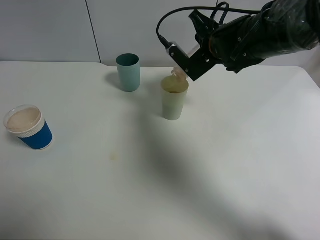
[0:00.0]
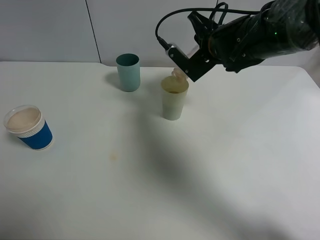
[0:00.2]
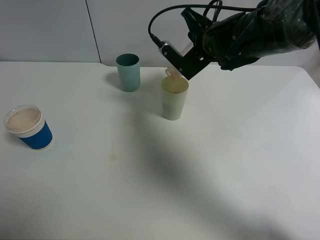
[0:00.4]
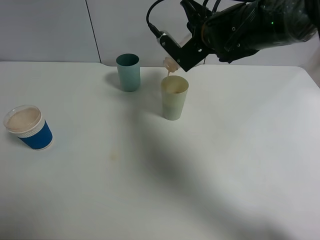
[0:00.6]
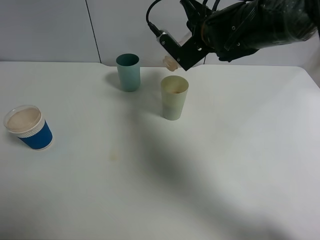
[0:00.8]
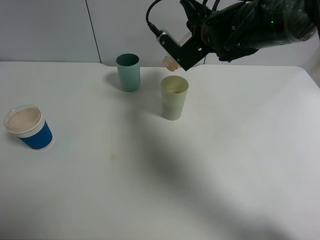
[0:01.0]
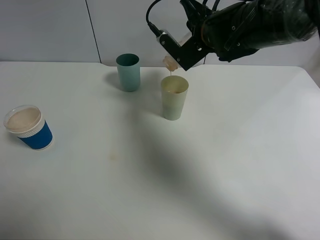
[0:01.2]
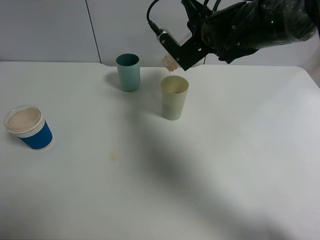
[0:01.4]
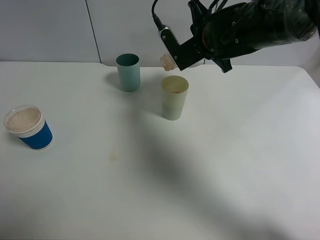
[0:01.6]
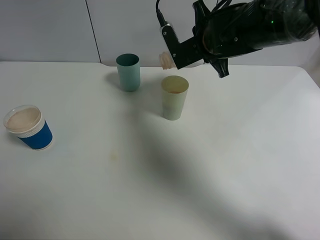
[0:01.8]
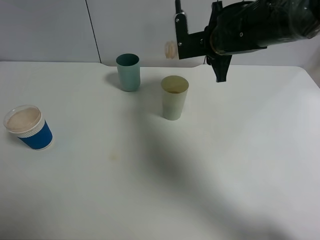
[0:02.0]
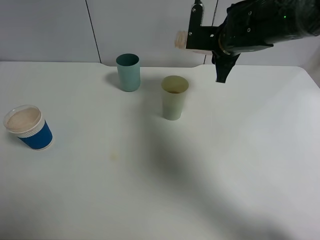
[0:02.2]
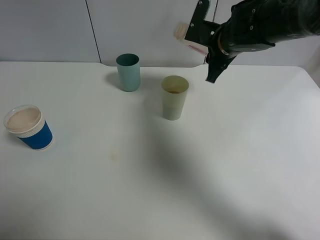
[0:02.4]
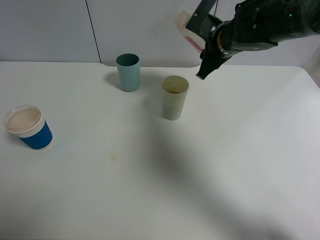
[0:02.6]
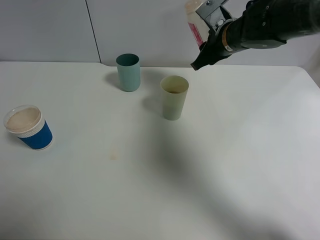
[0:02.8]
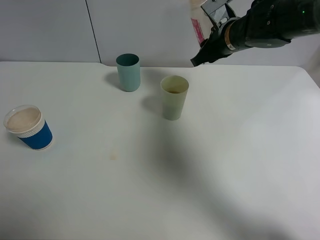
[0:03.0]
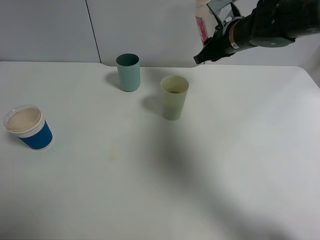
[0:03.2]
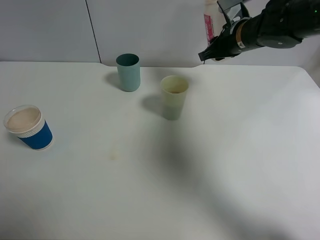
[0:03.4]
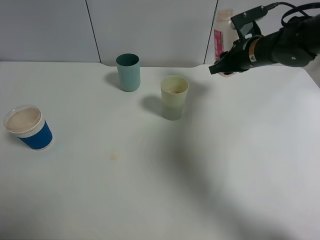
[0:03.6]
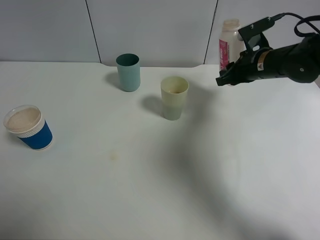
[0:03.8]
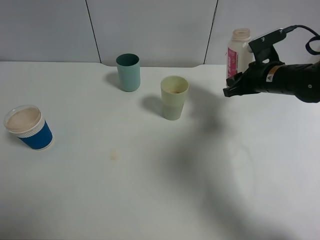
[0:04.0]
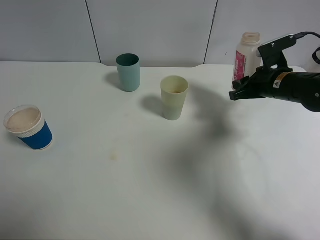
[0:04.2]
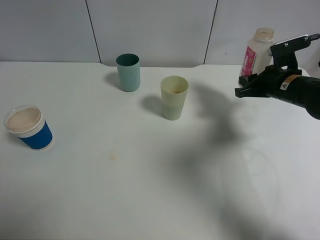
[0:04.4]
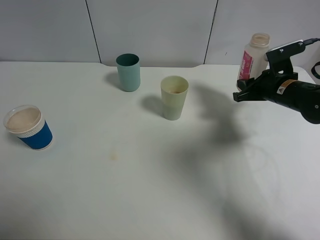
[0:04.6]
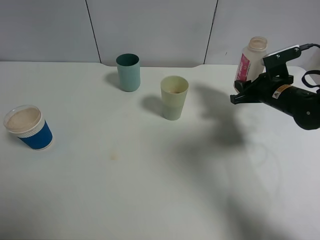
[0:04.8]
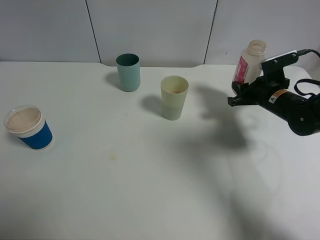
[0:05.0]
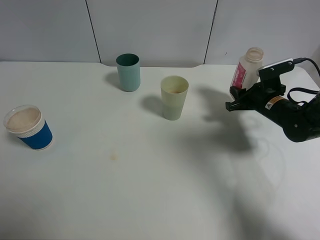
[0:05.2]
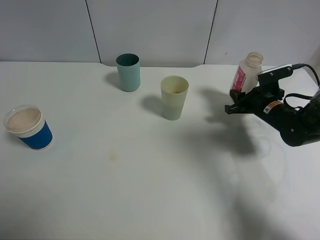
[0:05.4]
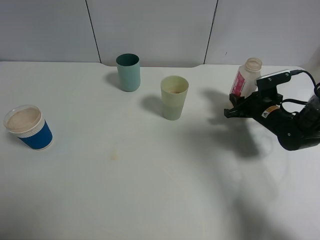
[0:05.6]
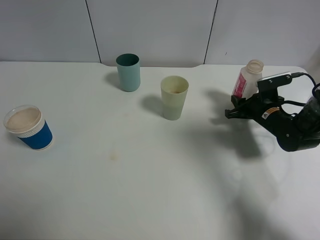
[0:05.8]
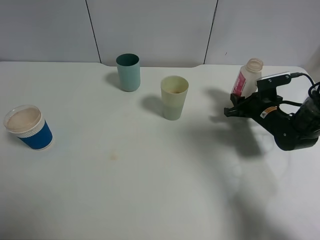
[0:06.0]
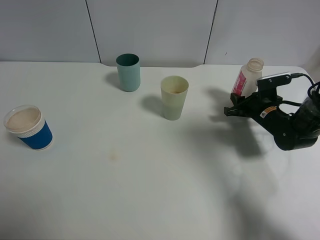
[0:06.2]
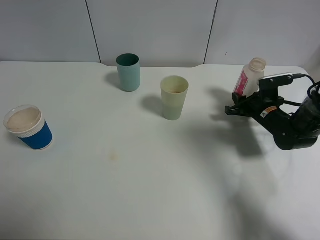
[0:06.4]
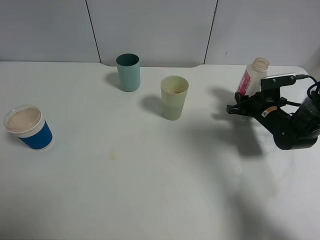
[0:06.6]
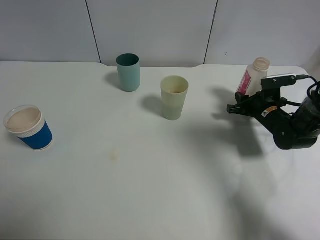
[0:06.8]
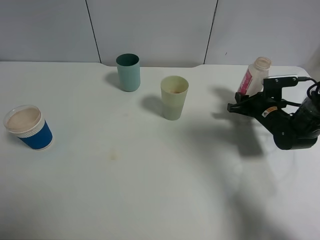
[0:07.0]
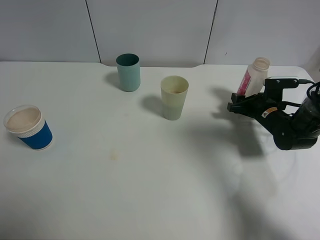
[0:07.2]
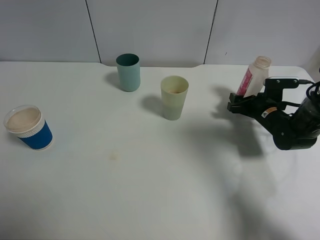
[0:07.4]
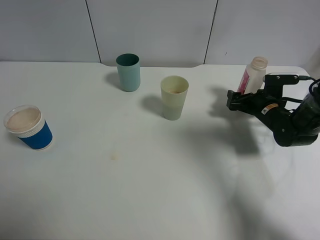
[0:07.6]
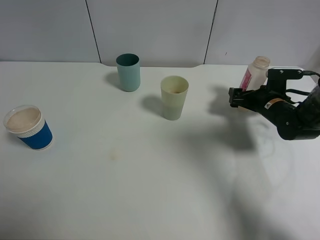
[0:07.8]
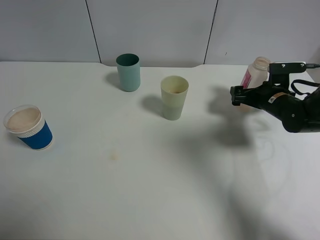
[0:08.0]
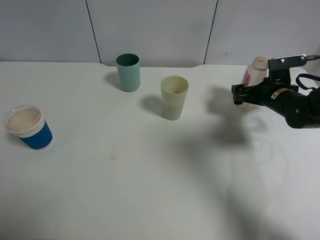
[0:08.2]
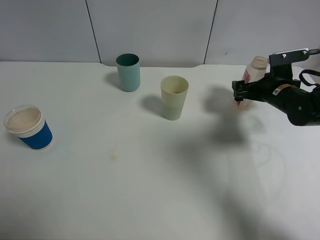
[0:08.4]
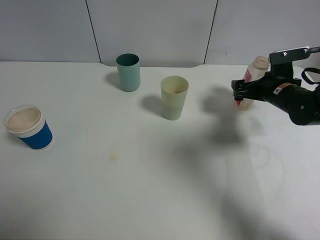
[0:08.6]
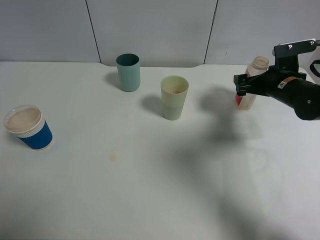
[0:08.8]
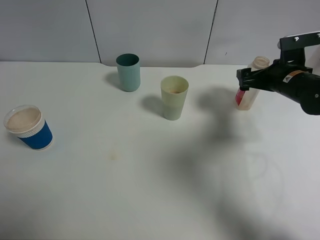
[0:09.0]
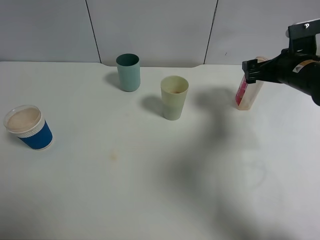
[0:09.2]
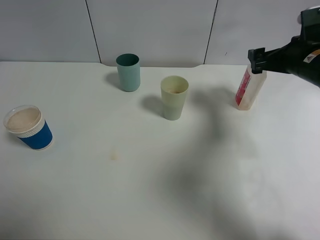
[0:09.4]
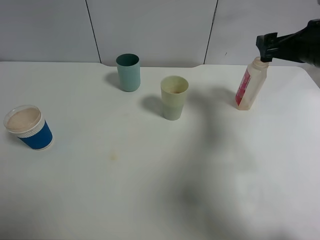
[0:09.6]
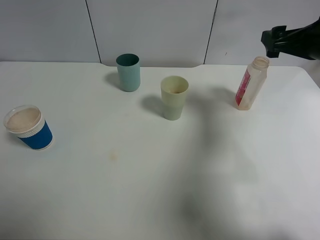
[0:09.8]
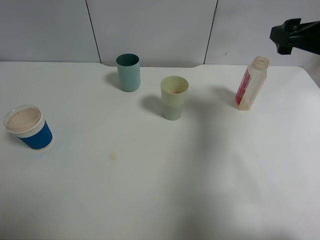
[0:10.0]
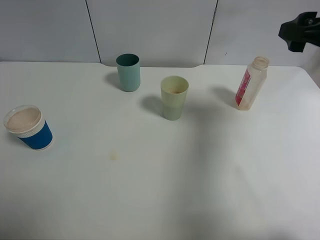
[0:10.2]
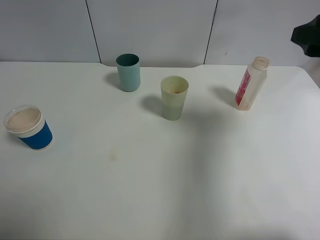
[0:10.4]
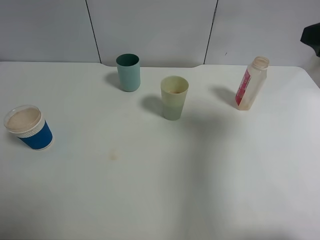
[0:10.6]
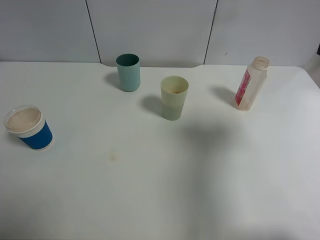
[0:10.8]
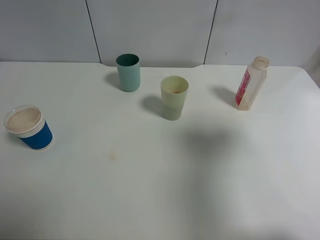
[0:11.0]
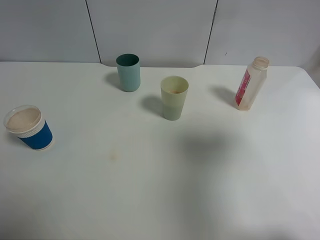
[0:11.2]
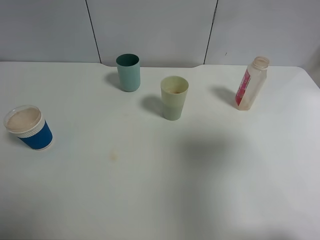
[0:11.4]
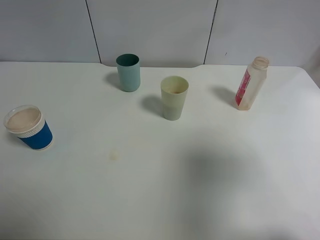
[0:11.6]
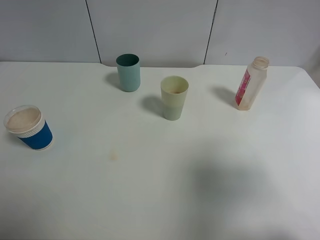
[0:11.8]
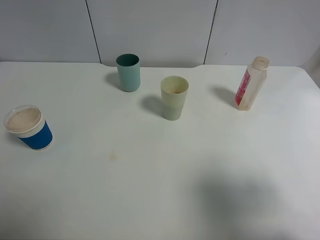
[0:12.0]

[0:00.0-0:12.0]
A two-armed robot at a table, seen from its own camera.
Task of the whole recording: use a clamp to hold the bottle of the drink, pour the beverage into a random cup, then clamp the cup containing the drink and pour the drink into another random cup.
Step, 0:01.6 to 0:07.8: Place the drink bottle on the table with right gripper.
0:00.0 to 0:01.6: The grippers make only small movements.
0:01.6 to 0:03.0: The right gripper shifts by roughly 5 cm.
0:03.0 to 0:04.4: The right gripper heads to the right, downward and backward, covering some 15 cm.
0:04.4 to 0:06.0: The right gripper shifts roughly 10 cm downward.
0:06.0 to 0:07.6: The right gripper opens its fingers.
0:07.6 to 0:09.0: The right gripper travels upward by roughly 10 cm.
0:09.0 to 0:10.4: The right gripper heads upward and backward, covering some 20 cm.
0:10.4 to 0:12.0: The right gripper shifts approximately 20 cm backward.

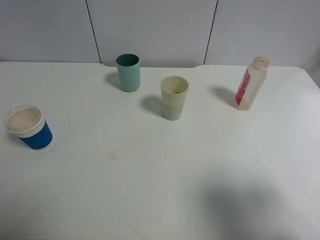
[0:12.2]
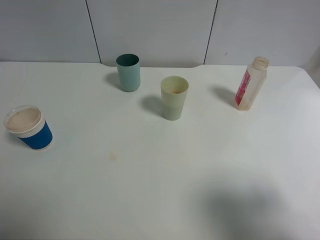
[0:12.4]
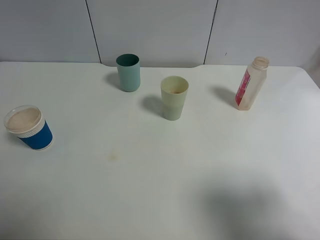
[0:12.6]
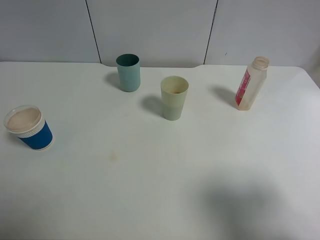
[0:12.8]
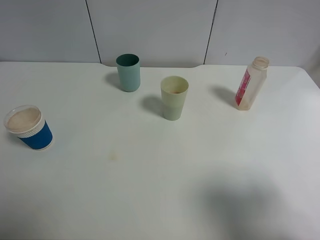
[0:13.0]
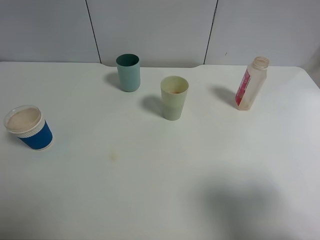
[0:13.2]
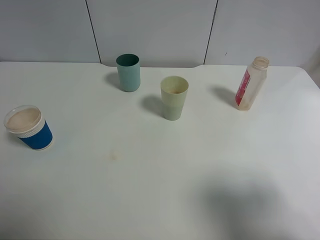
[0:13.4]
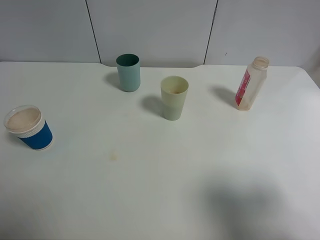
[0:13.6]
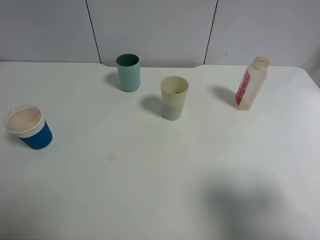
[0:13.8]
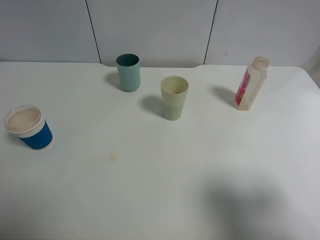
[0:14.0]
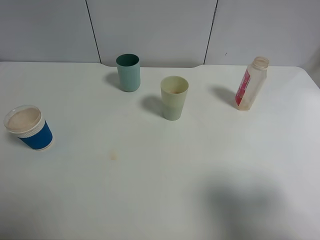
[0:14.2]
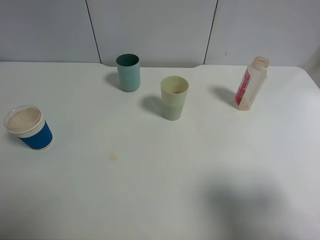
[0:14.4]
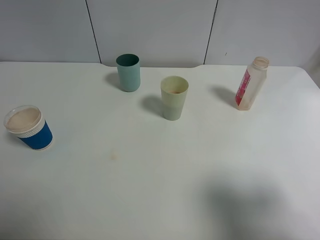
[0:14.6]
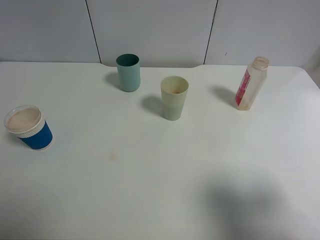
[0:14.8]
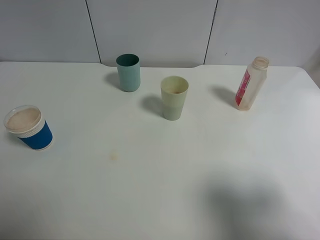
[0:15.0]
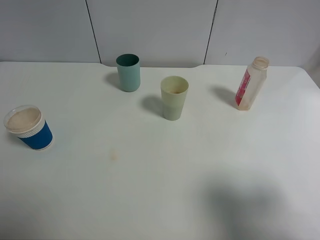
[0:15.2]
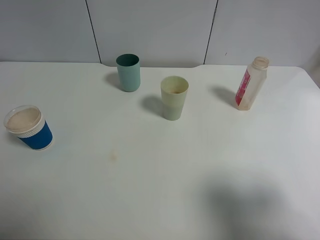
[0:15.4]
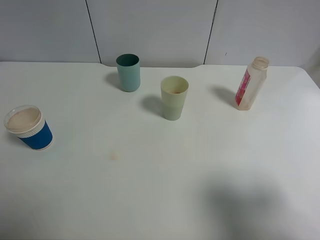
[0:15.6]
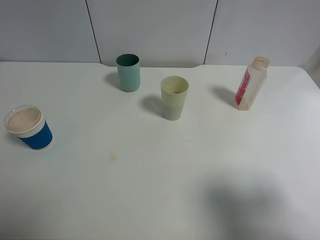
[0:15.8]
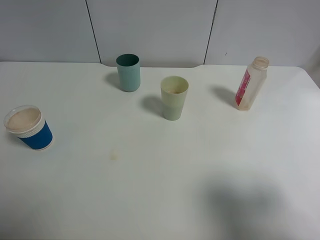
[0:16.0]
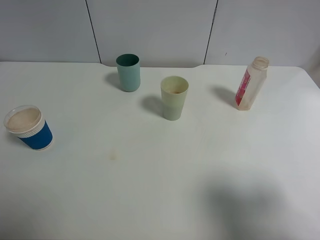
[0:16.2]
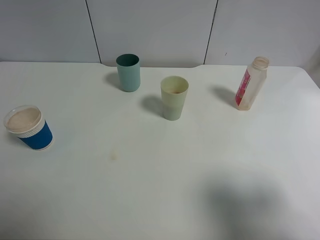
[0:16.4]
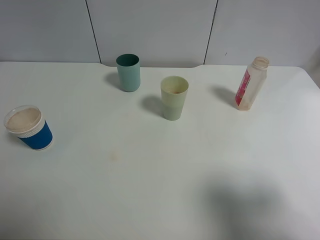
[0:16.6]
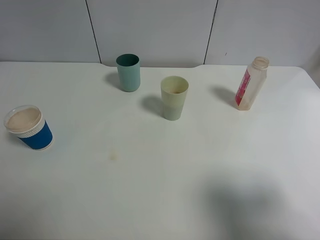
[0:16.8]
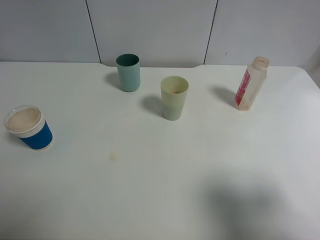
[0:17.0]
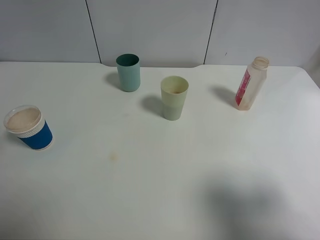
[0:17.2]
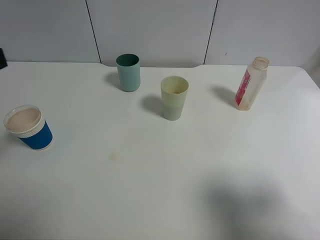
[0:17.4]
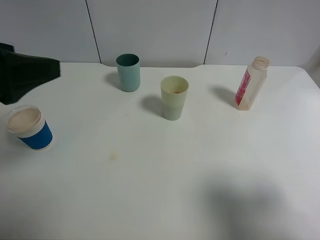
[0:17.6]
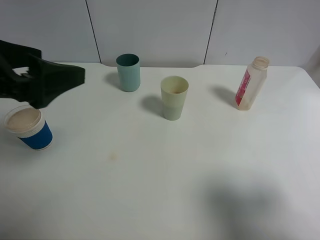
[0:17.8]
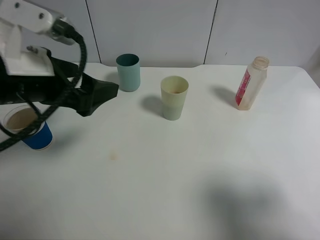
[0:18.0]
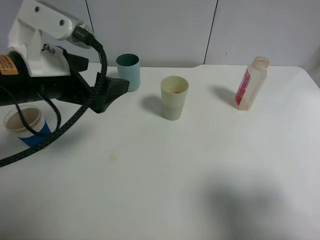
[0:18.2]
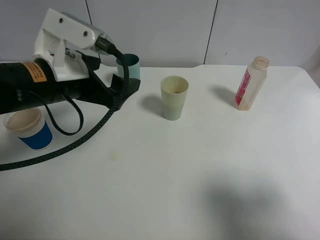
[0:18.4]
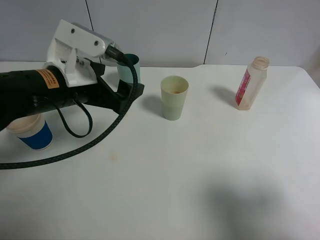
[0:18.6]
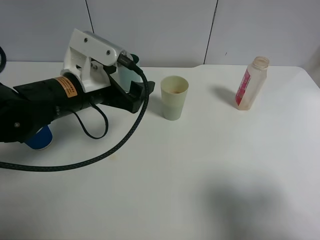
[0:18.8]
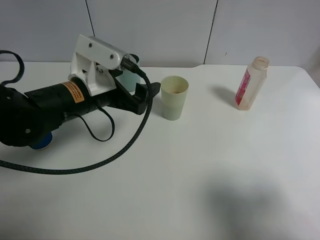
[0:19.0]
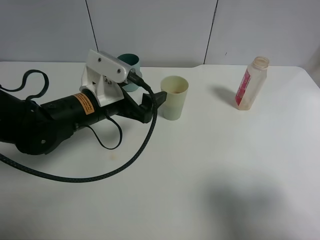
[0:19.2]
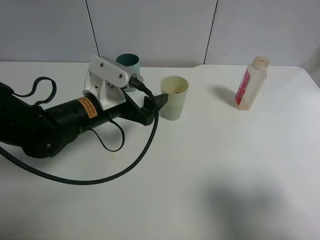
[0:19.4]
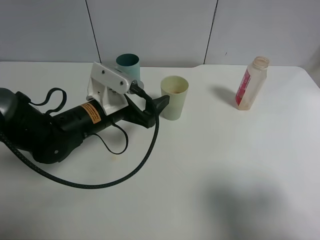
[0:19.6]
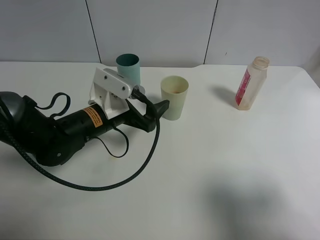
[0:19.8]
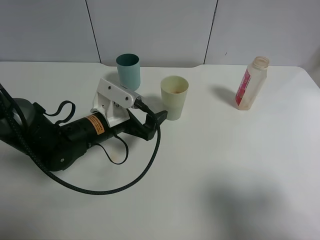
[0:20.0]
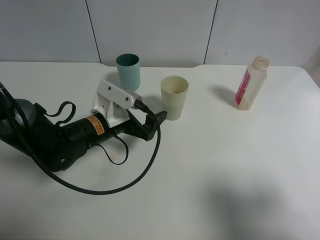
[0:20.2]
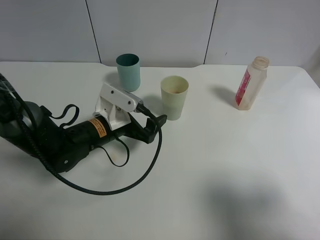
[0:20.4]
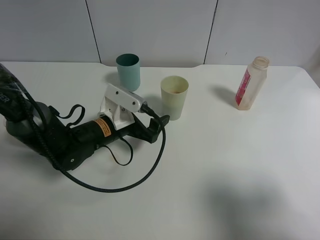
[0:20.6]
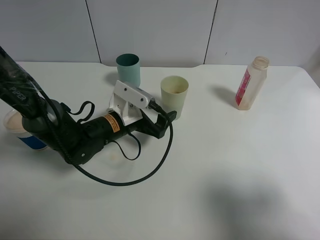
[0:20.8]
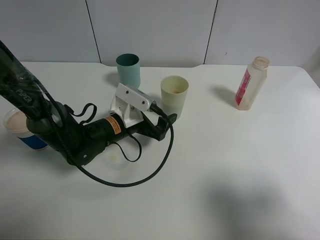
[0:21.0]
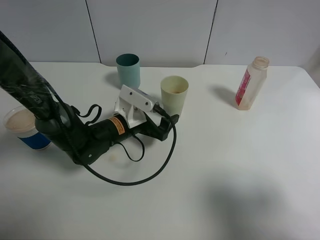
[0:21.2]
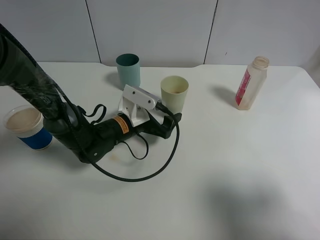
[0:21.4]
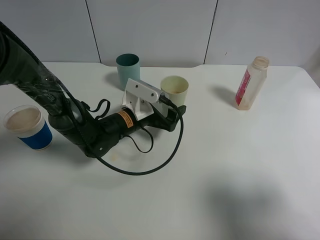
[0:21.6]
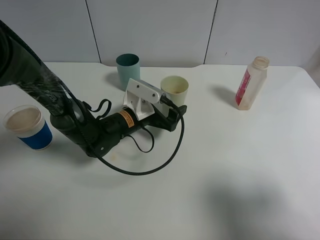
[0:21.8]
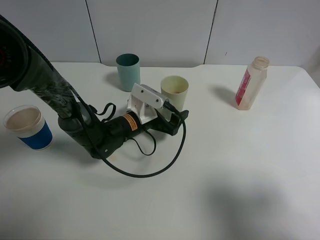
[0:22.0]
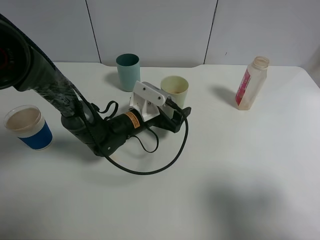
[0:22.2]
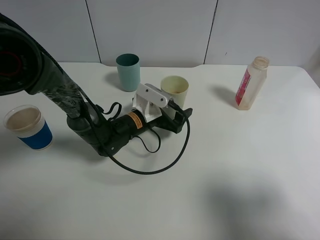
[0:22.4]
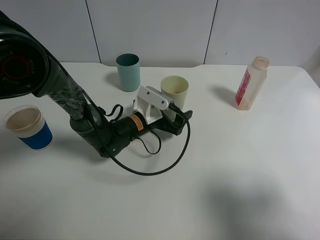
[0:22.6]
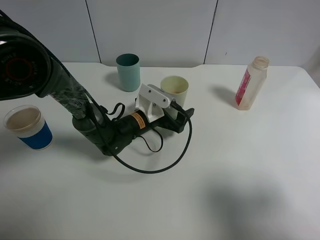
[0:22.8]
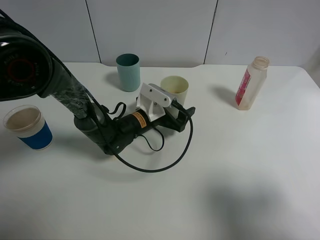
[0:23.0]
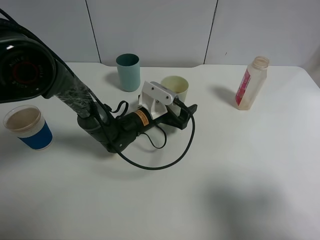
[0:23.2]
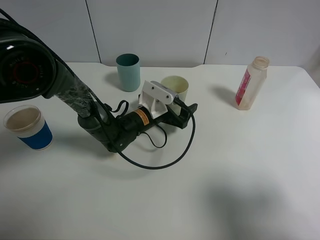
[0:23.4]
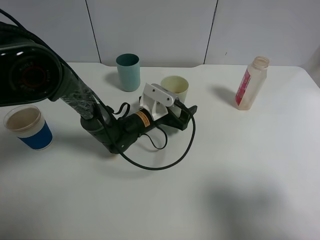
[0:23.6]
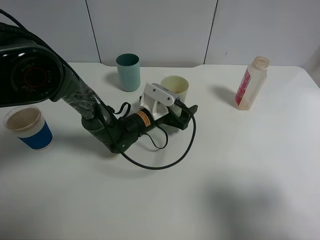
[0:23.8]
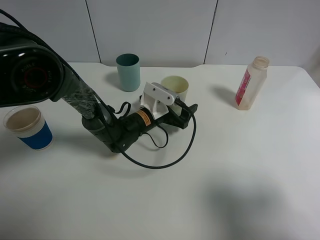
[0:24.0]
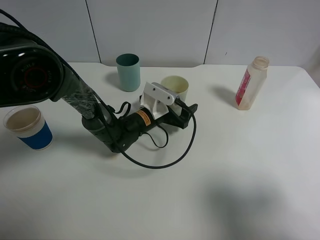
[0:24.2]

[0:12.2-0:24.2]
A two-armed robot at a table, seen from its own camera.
Task of the whole recording: use a clamp to hold the bottle of the drink, pour the beverage into a random cup, then clamp the cup containing the drink and pour the drink into another random cup.
0:13.8 to 0:15.2: The two grippers keep their place.
0:16.6 to 0:18.2: The left gripper goes about 25 cm forward and to the right.
0:18.2 to 0:19.8: The left gripper goes approximately 15 cm downward, to the right and forward.
0:19.8 to 0:21.2: The left gripper heads downward, covering roughly 5 cm.
0:21.2 to 0:22.6: The left gripper changes place by about 5 cm.
0:22.6 to 0:24.2: The grippers move only a little.
